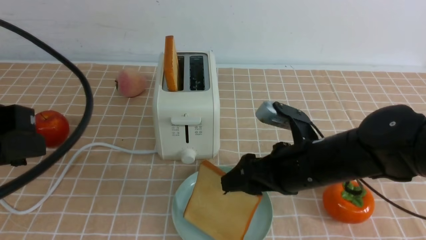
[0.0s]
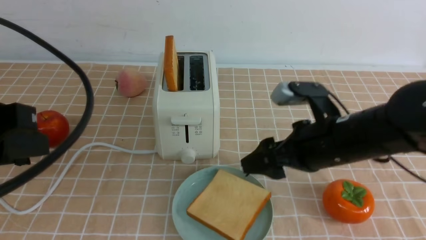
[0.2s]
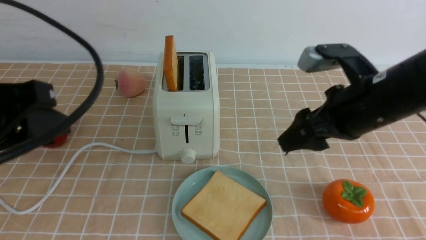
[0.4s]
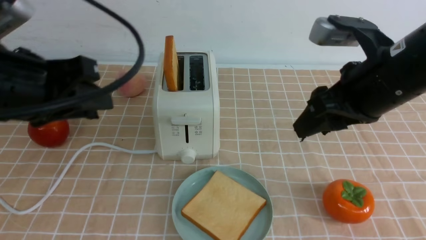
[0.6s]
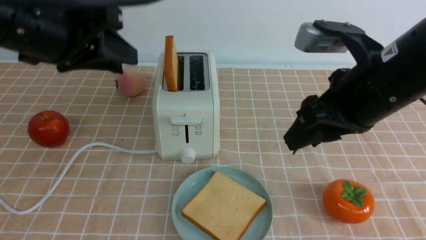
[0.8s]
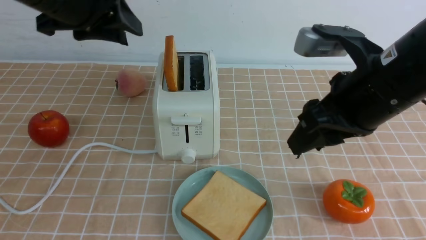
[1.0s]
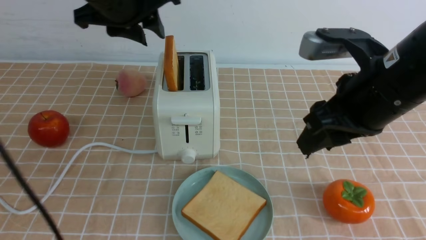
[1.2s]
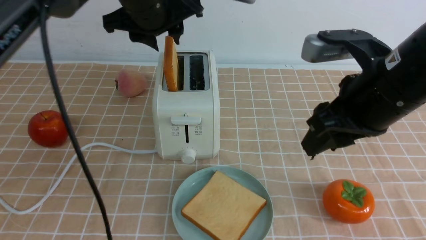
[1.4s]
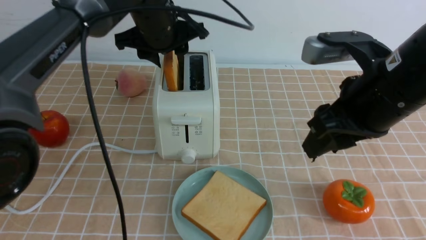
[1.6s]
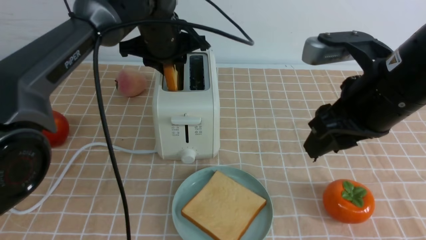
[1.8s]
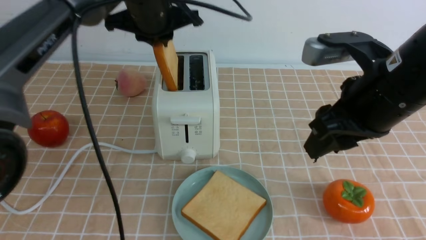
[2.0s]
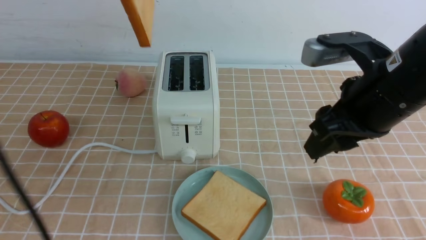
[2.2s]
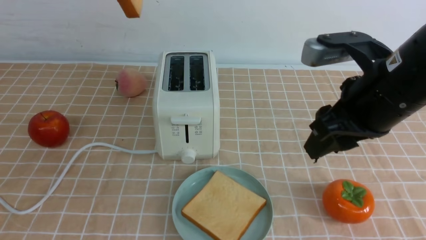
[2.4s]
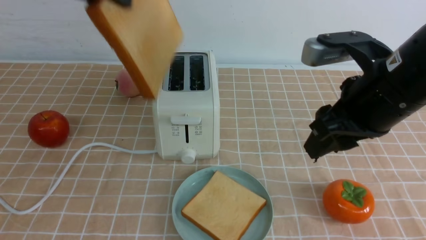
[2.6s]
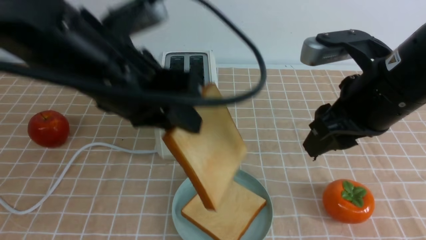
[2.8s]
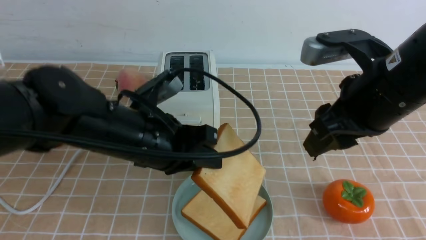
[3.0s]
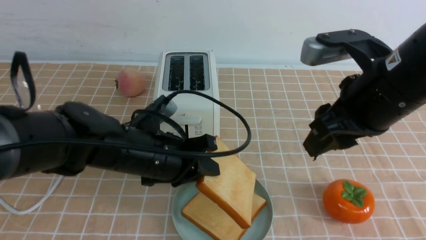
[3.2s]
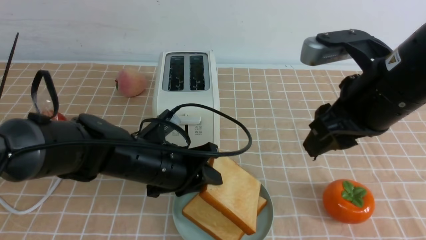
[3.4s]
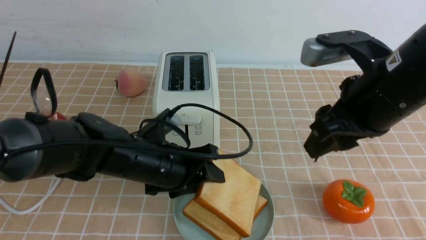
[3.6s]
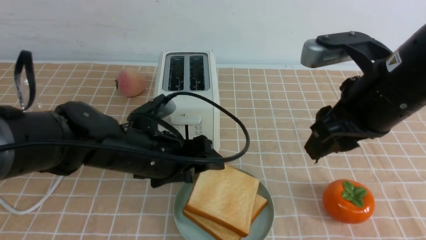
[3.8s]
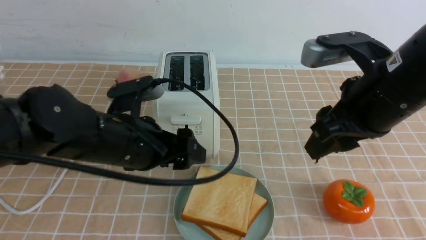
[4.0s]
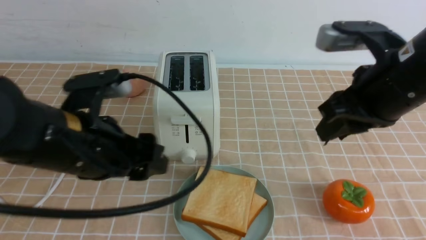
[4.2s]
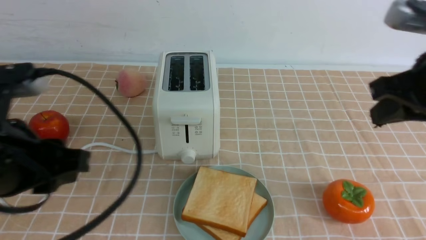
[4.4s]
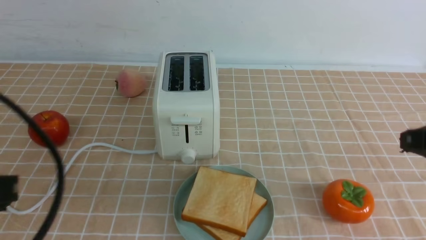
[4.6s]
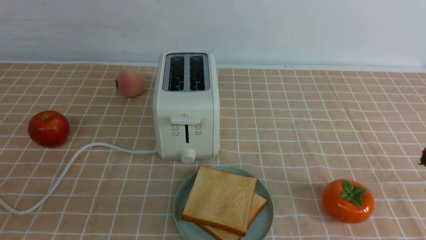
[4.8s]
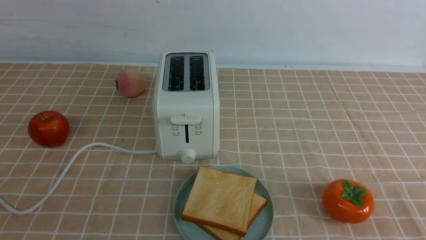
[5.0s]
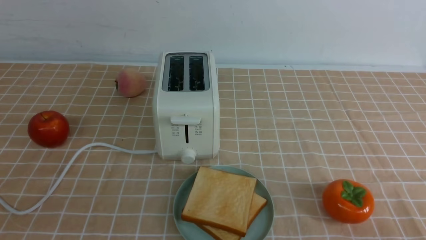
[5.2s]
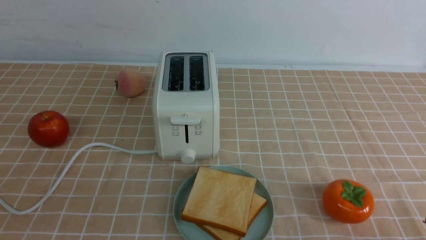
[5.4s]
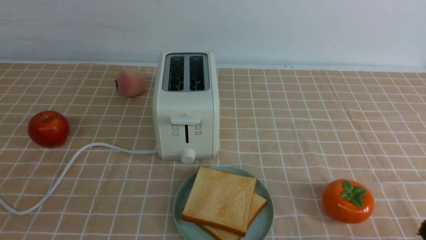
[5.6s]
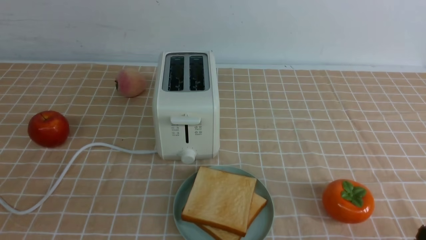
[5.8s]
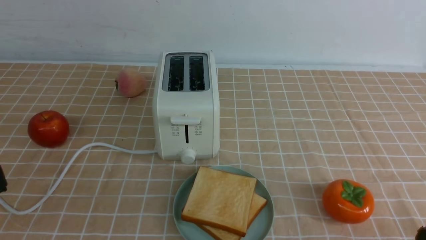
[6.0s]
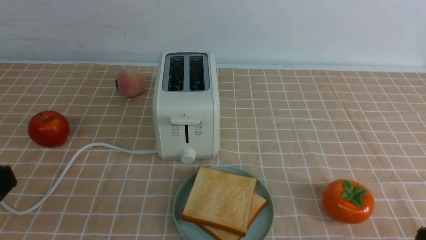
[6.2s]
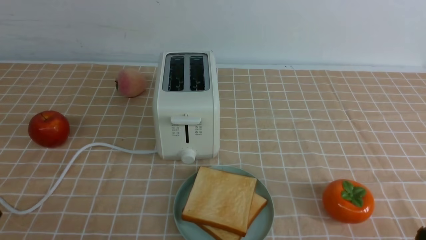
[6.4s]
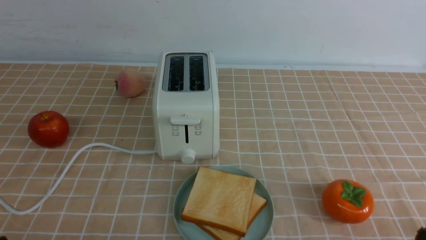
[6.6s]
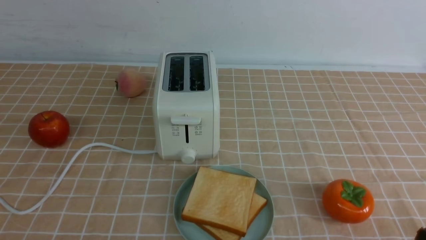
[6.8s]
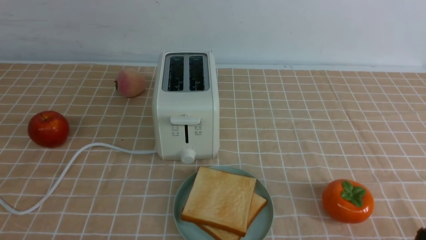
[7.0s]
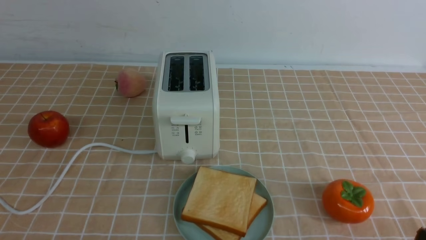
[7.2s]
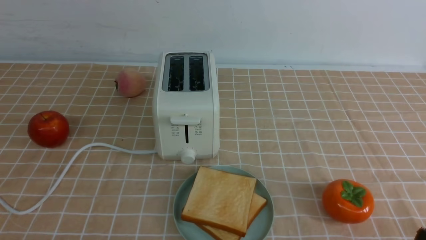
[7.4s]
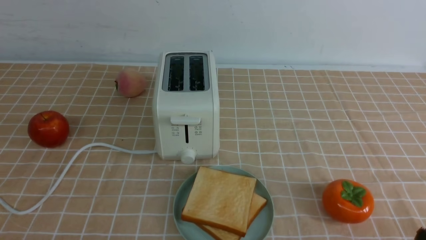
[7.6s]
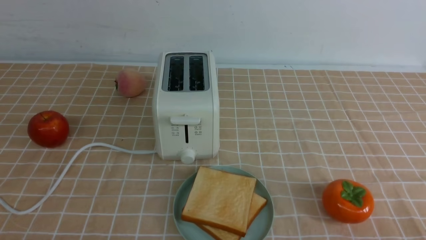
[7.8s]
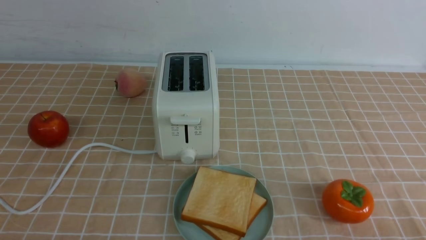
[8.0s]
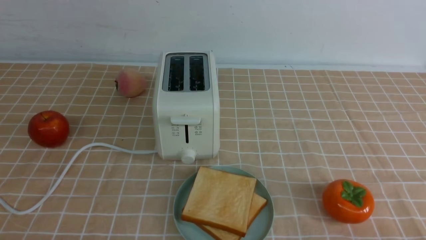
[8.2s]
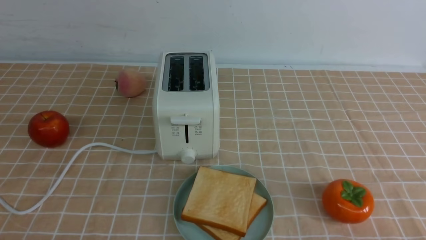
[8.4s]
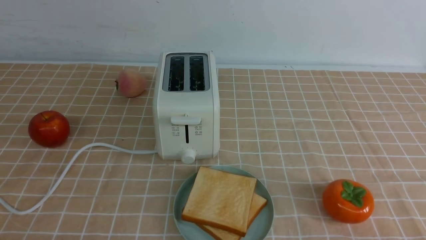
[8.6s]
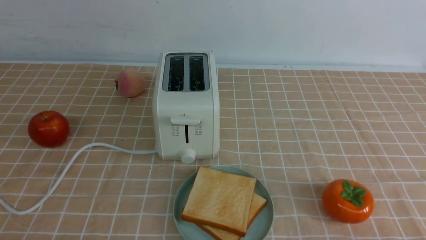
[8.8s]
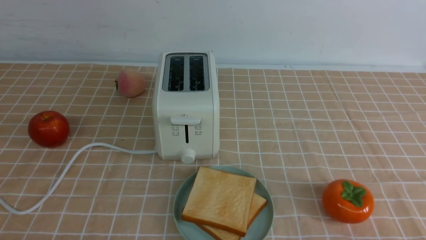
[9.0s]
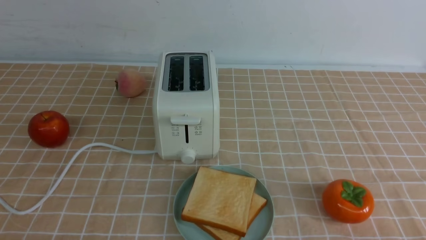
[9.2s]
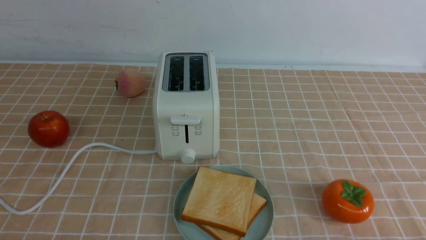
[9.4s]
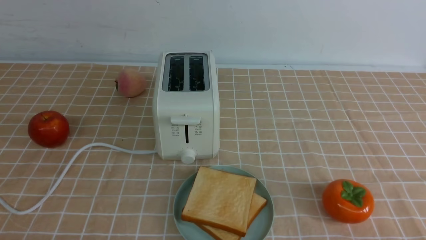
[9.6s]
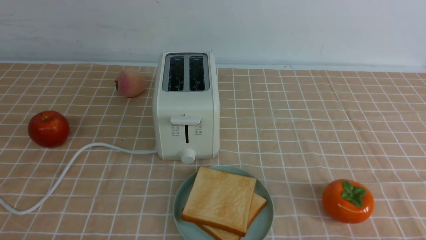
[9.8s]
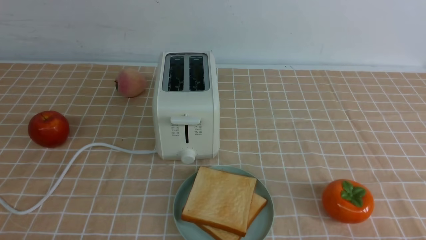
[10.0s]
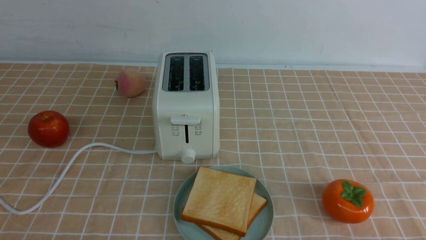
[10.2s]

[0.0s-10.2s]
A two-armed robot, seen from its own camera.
Task of the whole recording: take toasted bread from bread machine on light coffee tablecloth place on plate.
Step, 0.4s to 2.0s: use the left arm to take out a slice of bread.
Step, 2.2s to 3.8s: use the left arm to put a slice of bread into the empty plate.
0.0s to 1.4s: The left gripper shifts some 30 cm forward and to the right, while the right gripper moves upward, approximately 10 cm.
1.4s to 3.0s: The left gripper goes roughly 20 cm backward and downward, and closes.
3.0s to 4.4s: The left gripper moves backward, to the left and upward, about 15 cm, and opens and closes again. Meanwhile the right gripper heads to the right, covering roughly 5 cm, and closes up.
4.4s to 5.8s: The right gripper is displaced downward and backward by about 25 cm; the left gripper moves backward, roughly 10 cm, and closes up.
8.8s to 10.2s: Both grippers stay put.
